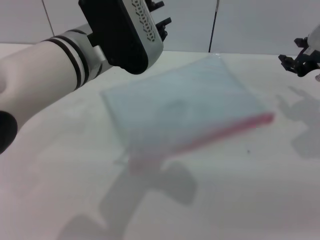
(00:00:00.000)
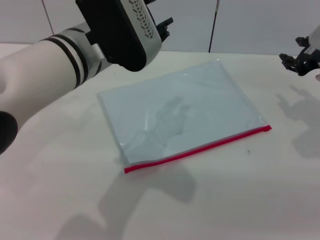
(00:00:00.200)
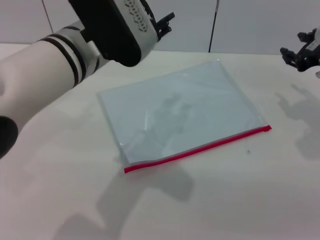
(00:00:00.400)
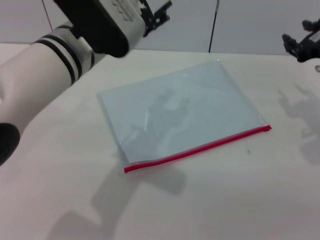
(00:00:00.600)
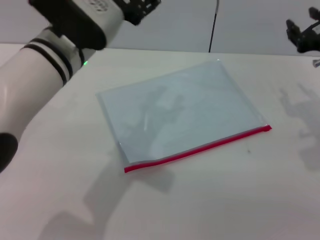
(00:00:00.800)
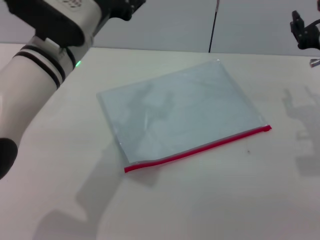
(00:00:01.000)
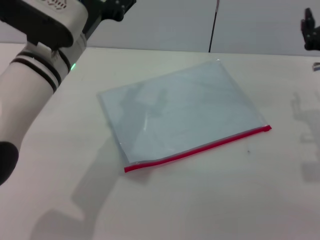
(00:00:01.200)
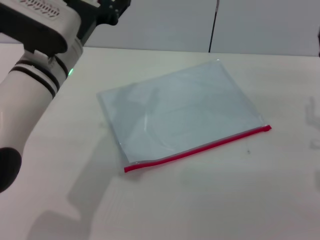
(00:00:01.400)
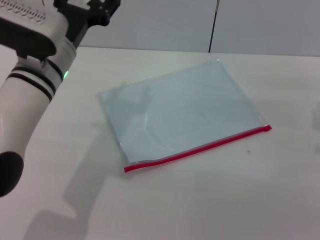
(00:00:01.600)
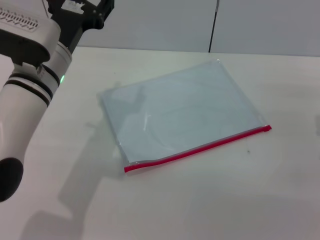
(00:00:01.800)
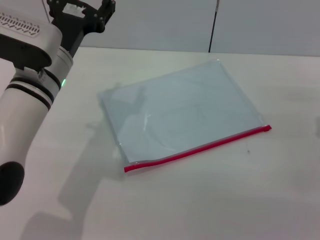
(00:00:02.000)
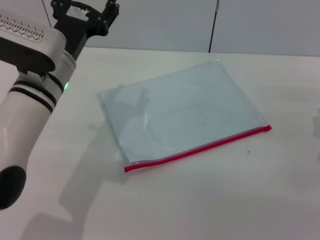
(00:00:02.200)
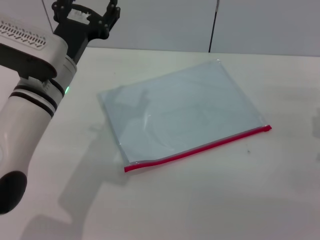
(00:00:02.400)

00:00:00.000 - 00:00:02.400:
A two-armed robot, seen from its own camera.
Step, 00:00:00.000 - 00:00:00.400: Place the transparent plastic bag.
00:00:00.000 - 00:00:01.200: The right gripper shifts roughly 5 cm backward, and opens. The left gripper shifts by some 5 cm, and opens.
00:00:01.200 - 00:00:02.400: The left gripper moves about 5 cm, while the right gripper goes about 5 cm downward.

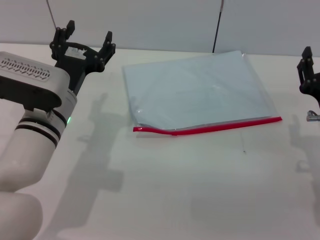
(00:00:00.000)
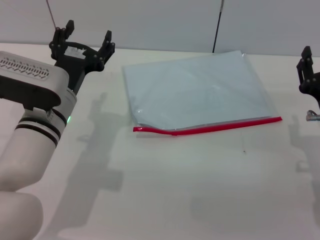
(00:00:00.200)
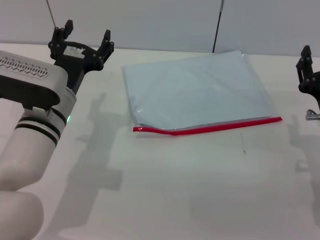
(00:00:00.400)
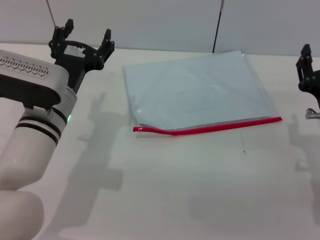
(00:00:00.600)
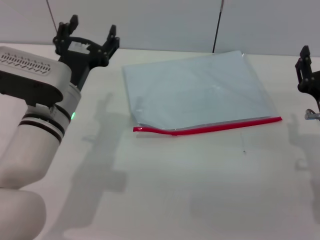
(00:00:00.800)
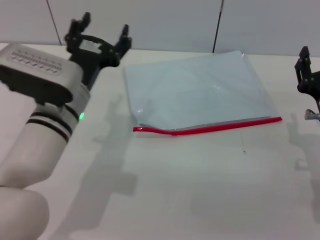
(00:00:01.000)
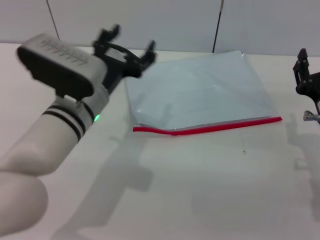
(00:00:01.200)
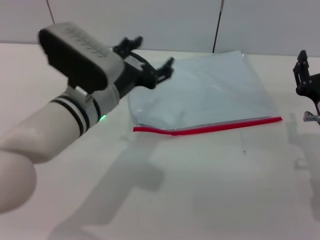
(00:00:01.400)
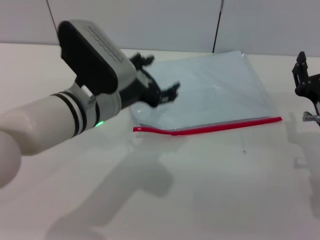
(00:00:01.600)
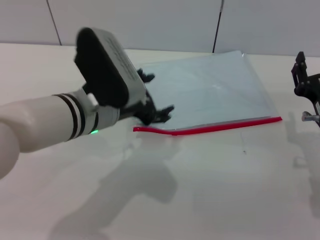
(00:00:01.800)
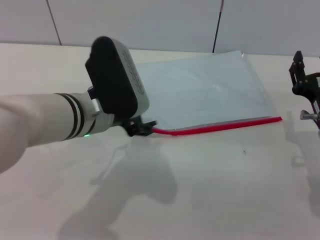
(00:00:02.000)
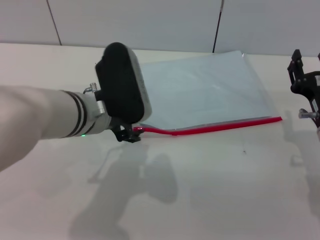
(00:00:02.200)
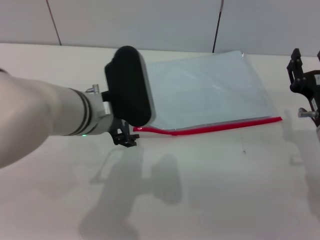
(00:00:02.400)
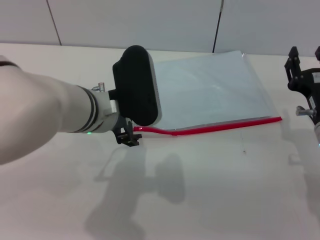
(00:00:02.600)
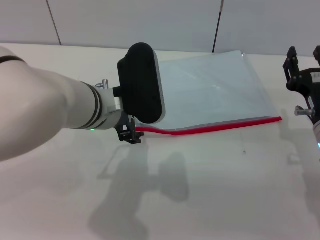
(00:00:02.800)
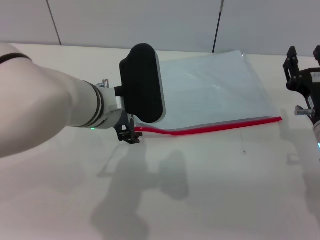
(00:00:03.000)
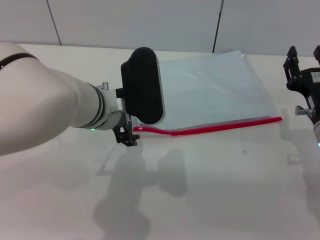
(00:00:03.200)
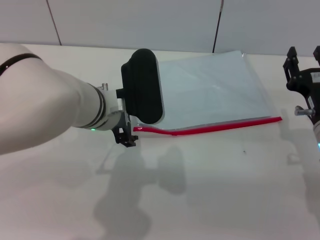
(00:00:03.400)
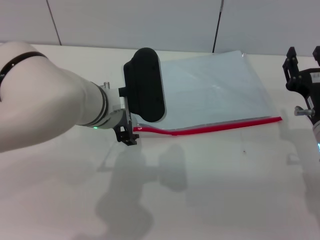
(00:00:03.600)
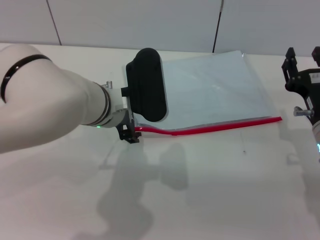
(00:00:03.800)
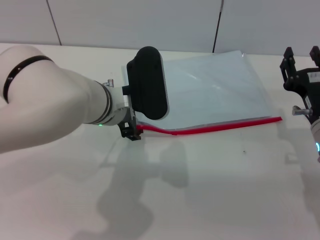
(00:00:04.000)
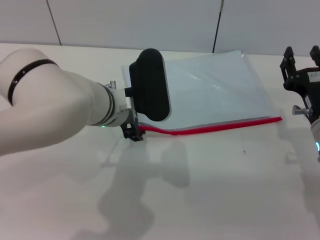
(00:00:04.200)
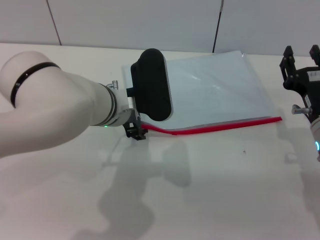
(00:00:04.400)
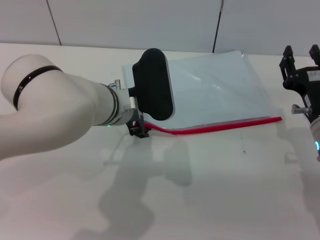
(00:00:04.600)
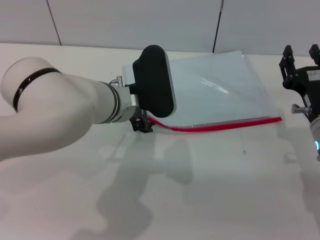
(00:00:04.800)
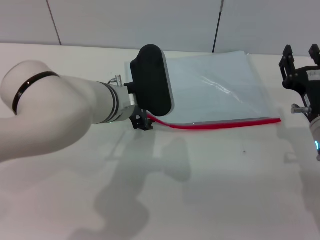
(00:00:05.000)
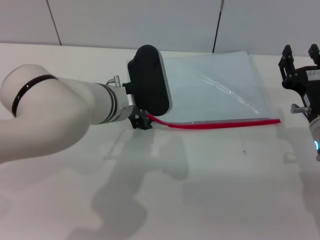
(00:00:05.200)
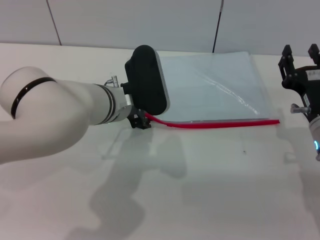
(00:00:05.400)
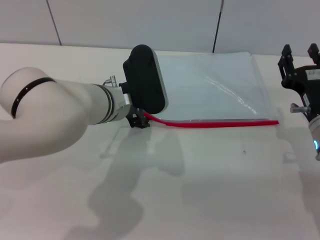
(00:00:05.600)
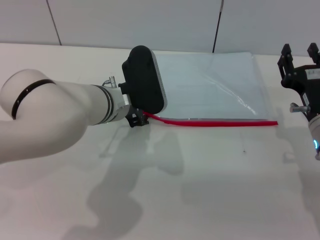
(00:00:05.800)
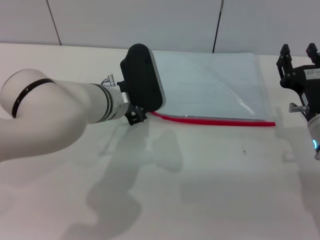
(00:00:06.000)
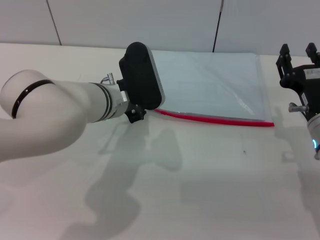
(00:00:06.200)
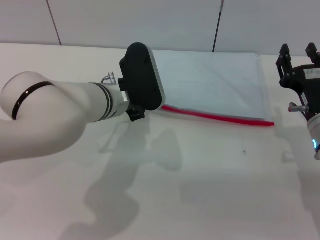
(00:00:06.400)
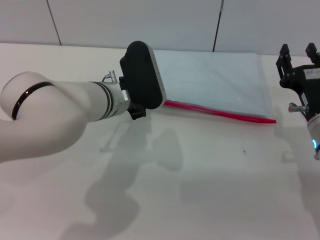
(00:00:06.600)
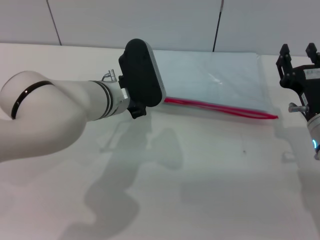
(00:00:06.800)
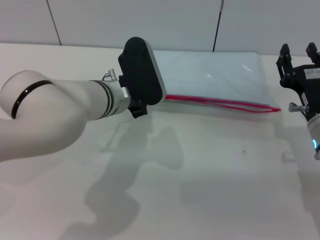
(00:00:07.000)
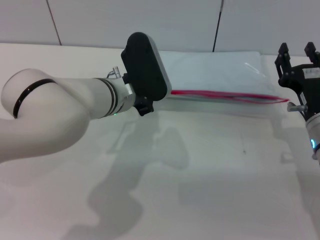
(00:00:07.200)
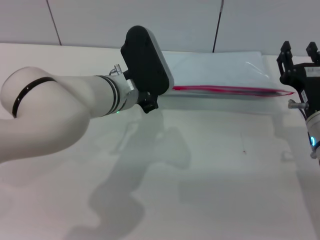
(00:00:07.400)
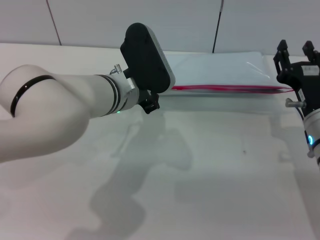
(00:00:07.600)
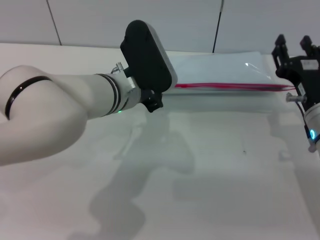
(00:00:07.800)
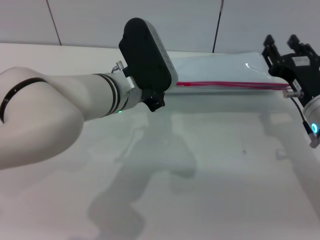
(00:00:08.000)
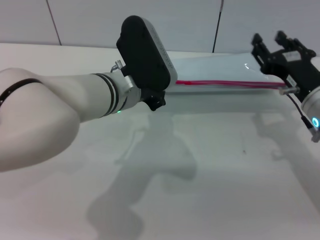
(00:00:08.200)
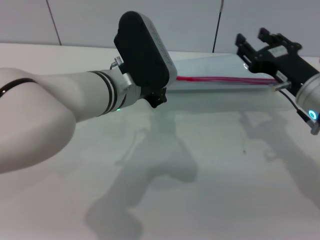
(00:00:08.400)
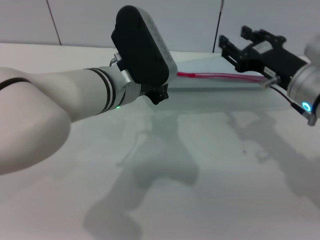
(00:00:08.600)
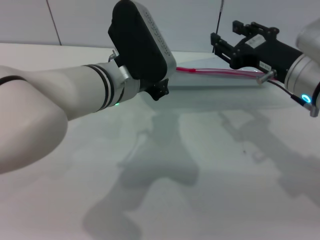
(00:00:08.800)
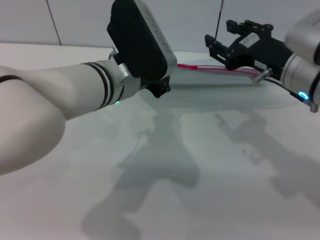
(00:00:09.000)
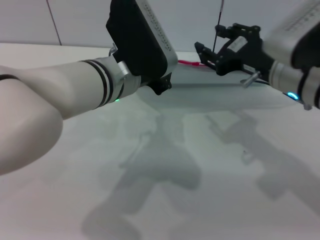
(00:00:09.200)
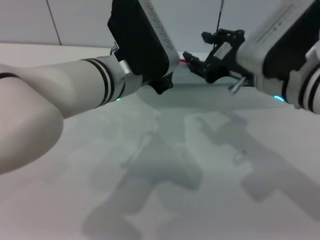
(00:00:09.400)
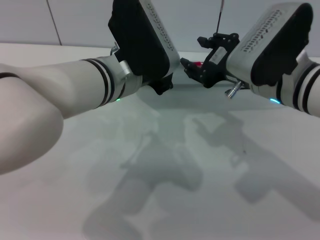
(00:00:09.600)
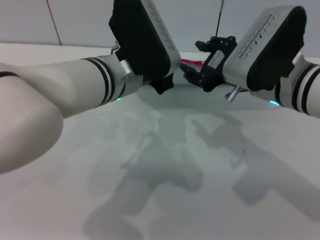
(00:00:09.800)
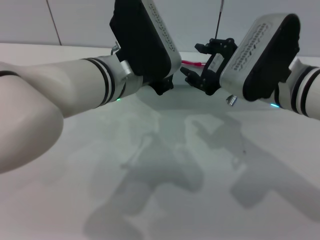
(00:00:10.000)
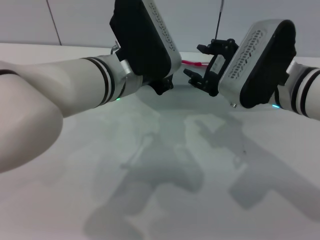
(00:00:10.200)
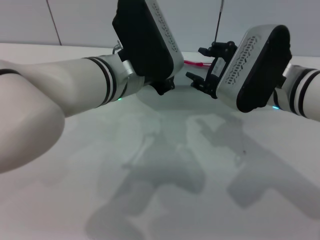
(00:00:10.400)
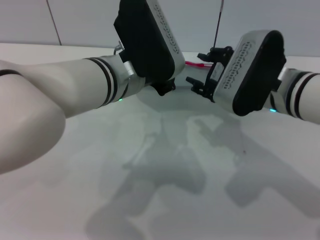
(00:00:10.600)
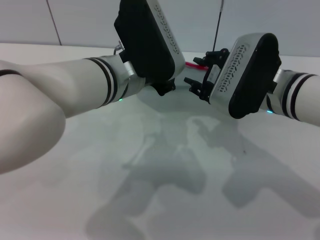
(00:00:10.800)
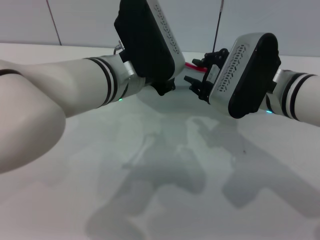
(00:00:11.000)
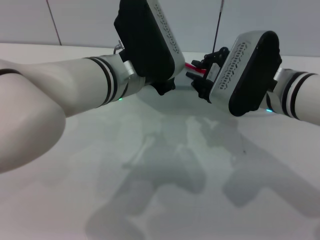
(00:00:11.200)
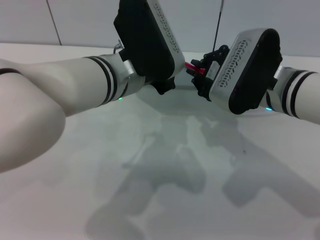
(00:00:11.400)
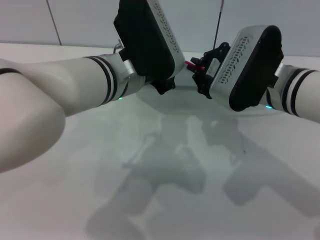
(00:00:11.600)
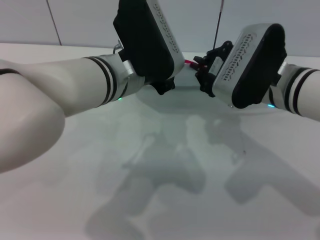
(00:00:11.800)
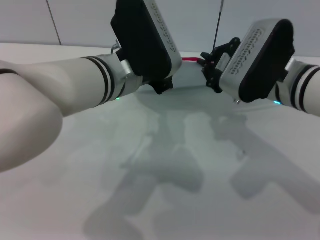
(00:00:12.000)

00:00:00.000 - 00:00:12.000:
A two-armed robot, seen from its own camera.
Step, 00:00:00.000 - 00:00:09.000: Pick up the transparent plastic bag with the left gripper.
00:00:00.000 - 00:00:01.600: The left gripper moves about 5 cm.
00:00:03.000 - 00:00:04.400: There are only small adjustments of the grippers.
00:00:04.400 - 00:00:06.000: The grippers stay close to where they were, moving slightly.
00:00:06.000 - 00:00:07.600: The left gripper closes up.
00:00:07.600 - 00:00:09.000: The right gripper heads upward, covering roughly 10 cm, while the left gripper moves approximately 5 cm.
00:00:10.400 - 00:00:12.000: The right gripper closes its fingers.

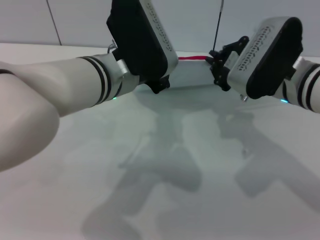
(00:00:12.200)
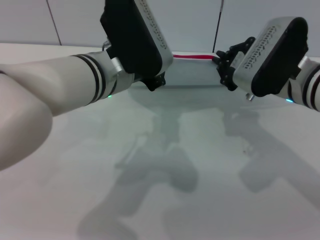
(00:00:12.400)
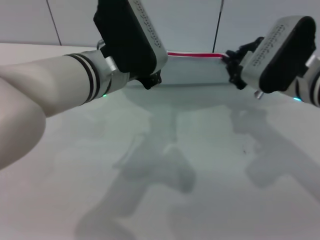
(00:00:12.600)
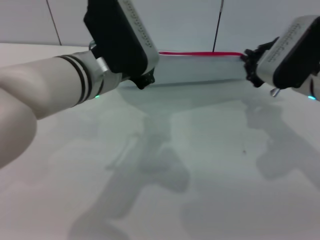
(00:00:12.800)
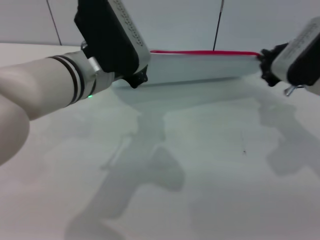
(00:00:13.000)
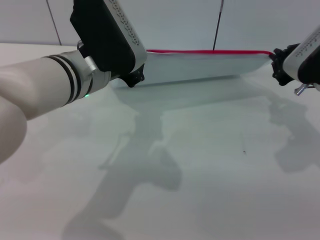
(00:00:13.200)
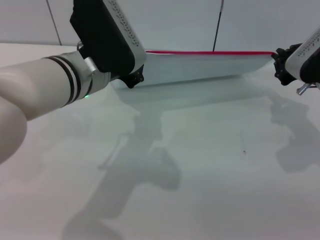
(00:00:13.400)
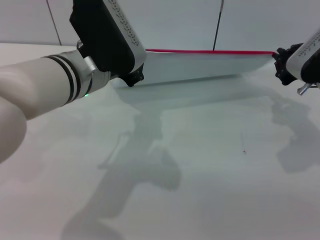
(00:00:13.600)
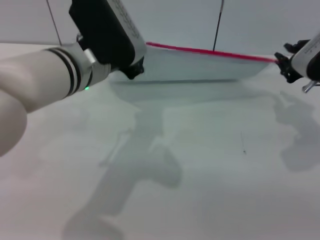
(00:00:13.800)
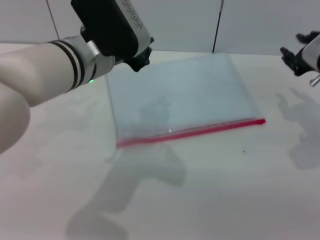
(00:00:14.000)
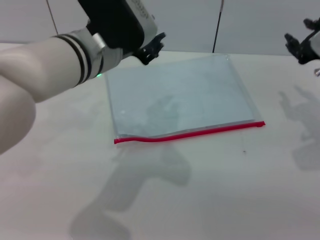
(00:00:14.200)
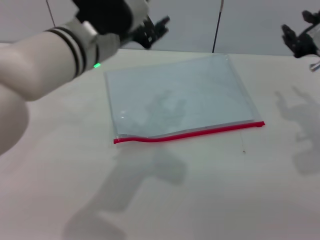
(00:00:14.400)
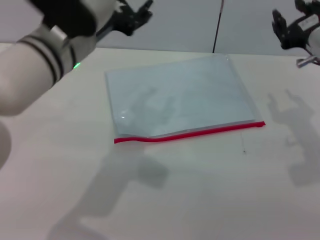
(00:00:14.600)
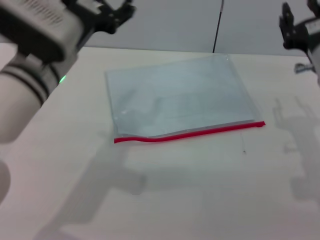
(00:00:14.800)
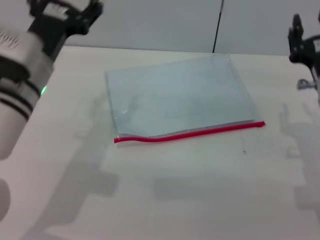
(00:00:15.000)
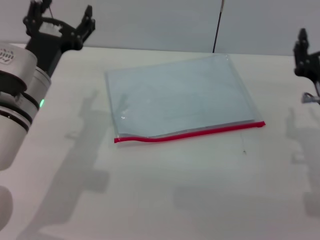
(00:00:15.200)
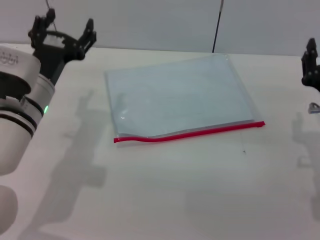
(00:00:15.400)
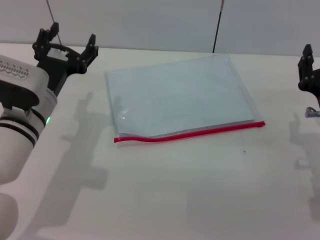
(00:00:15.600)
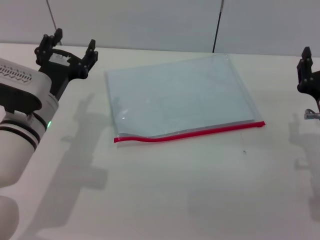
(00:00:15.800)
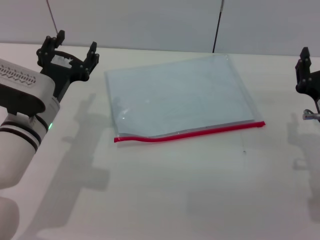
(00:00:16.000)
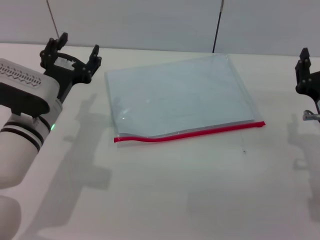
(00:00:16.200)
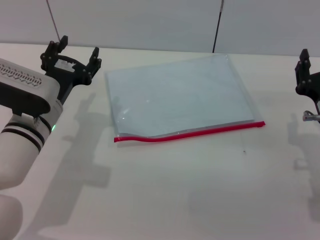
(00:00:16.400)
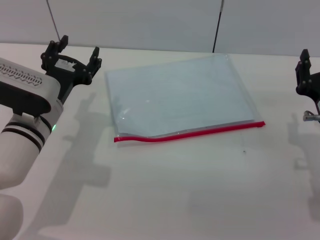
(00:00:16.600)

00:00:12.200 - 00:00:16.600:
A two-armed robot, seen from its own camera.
Step, 00:00:13.800 - 00:00:14.400: Place the transparent plastic bag.
00:00:12.200 - 00:00:13.600: The right gripper heads to the right, covering approximately 10 cm.
00:00:13.600 - 00:00:15.200: The right gripper is displaced backward by some 10 cm, and opens its fingers, while the left gripper shifts approximately 10 cm to the left and downward, and opens up.
00:00:15.200 - 00:00:16.600: The grippers make only small movements.
